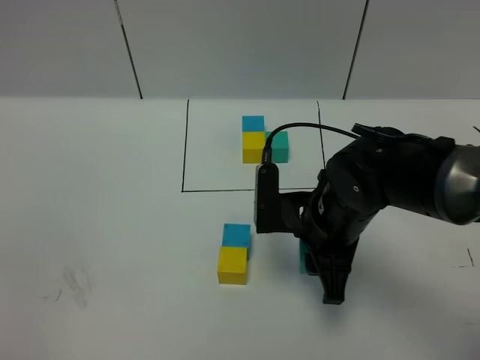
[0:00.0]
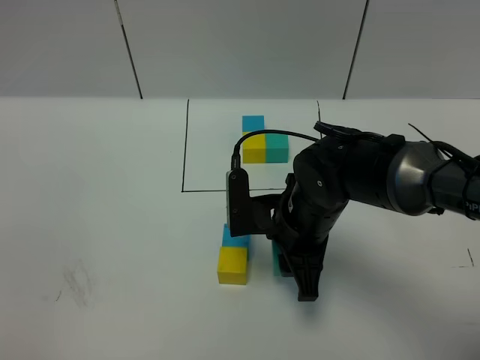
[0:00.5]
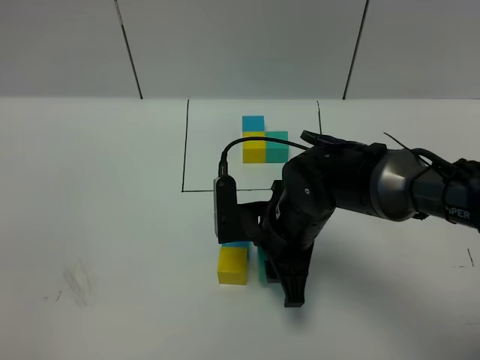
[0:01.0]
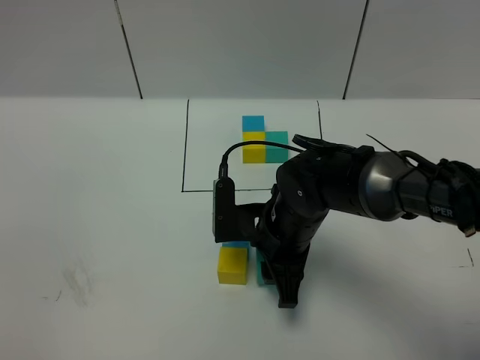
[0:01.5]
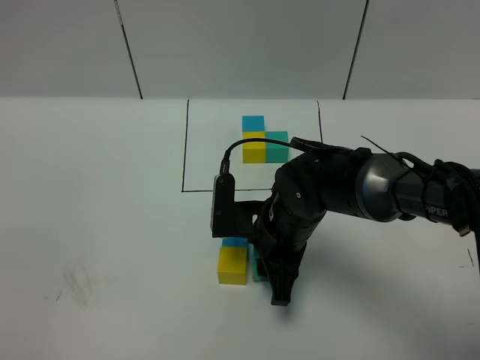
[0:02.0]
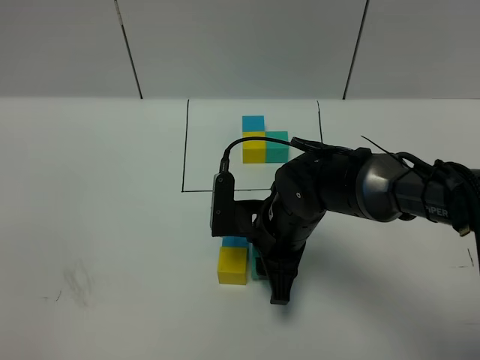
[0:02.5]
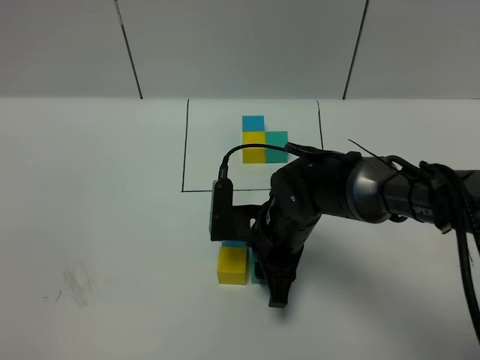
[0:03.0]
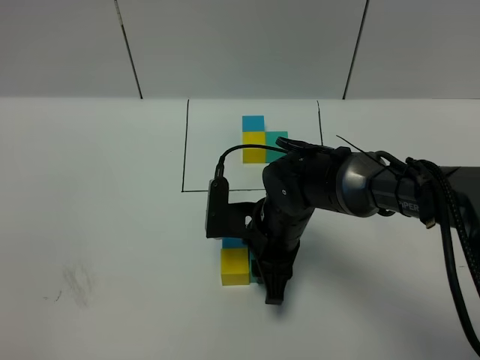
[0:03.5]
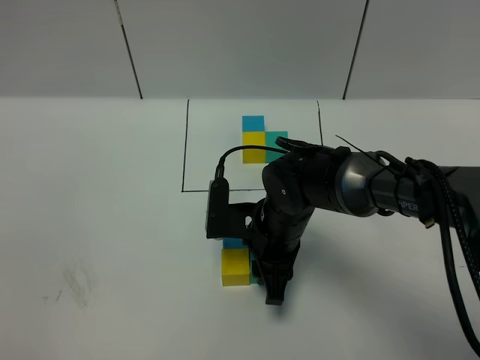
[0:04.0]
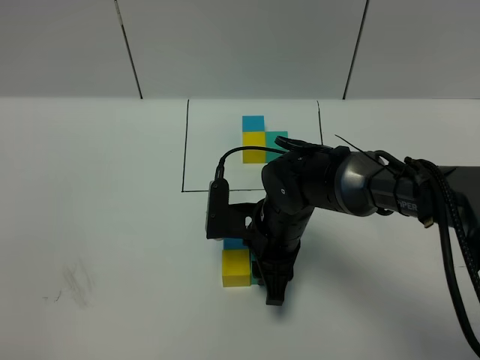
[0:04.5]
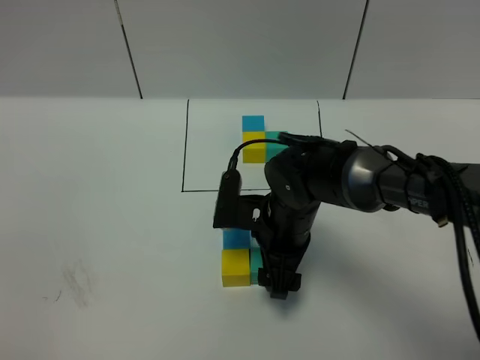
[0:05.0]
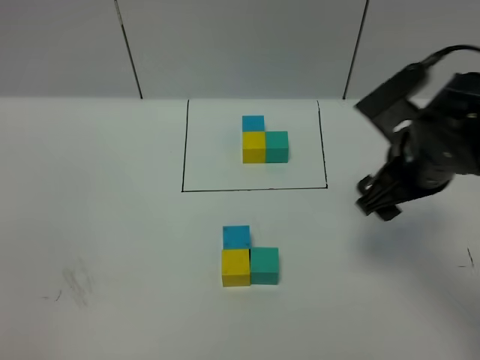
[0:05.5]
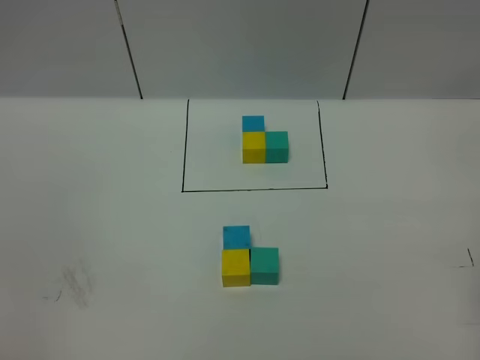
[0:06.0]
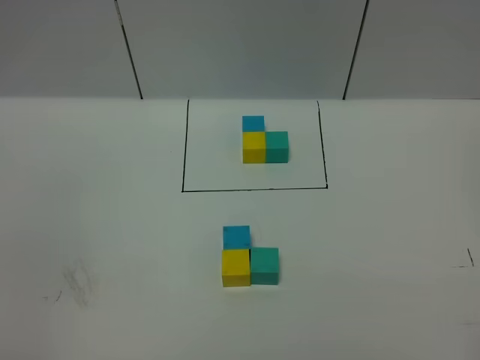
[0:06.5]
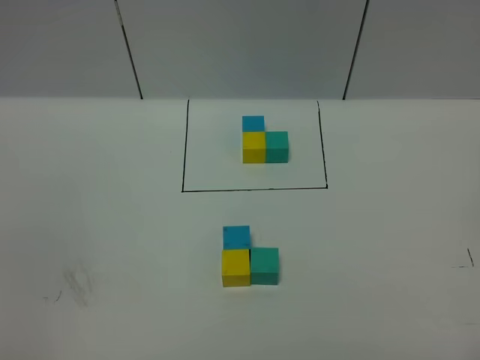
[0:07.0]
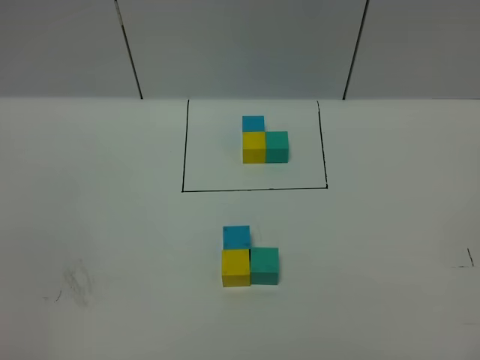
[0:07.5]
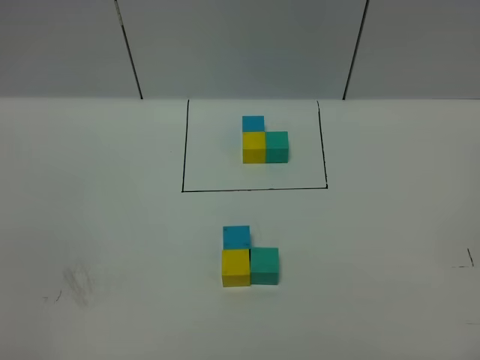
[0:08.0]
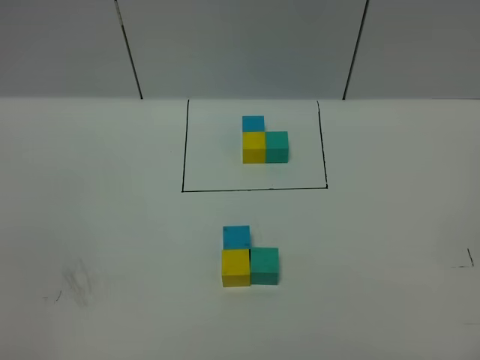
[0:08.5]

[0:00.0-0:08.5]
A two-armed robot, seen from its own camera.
Task of the whole recording: According to the building block template in front, assemble the scattered blocks together.
Step, 0:00.0 to 0:05.0: Put the green cube on the right of the yellow cube.
0:00.0 to 0:02.0: The right gripper moves some 5 cm.
0:02.0 to 0:04.0: There are only small adjustments of the grippers.
0:04.0 to 0:06.5: The right gripper moves to the right, backward and upward, roughly 40 cm, and opens.

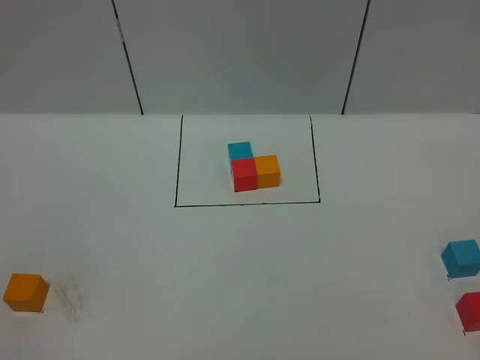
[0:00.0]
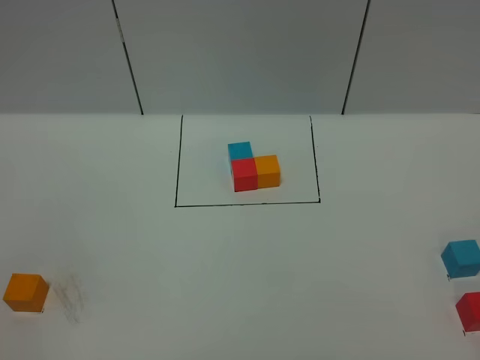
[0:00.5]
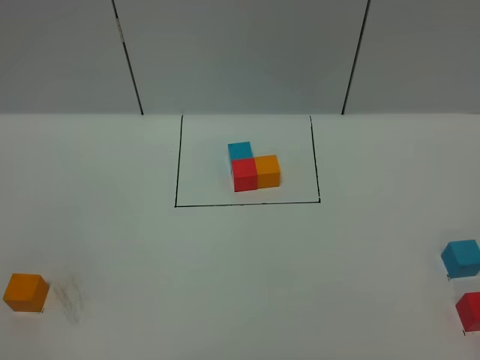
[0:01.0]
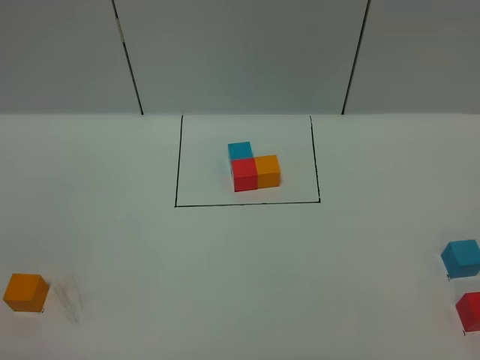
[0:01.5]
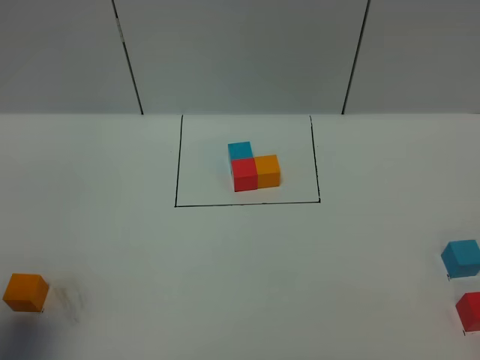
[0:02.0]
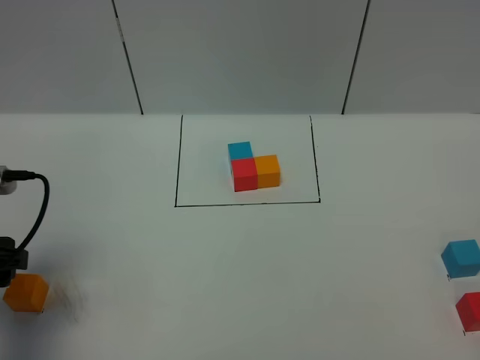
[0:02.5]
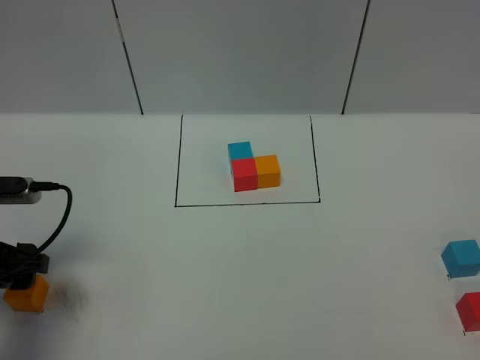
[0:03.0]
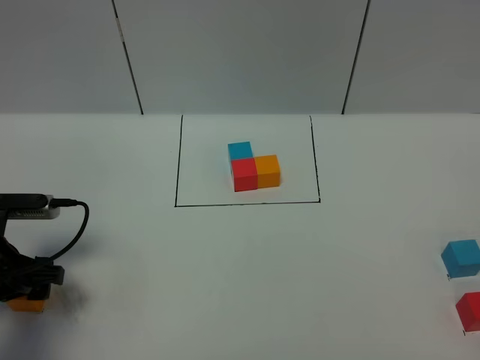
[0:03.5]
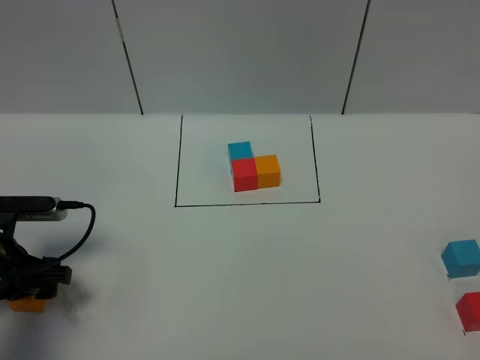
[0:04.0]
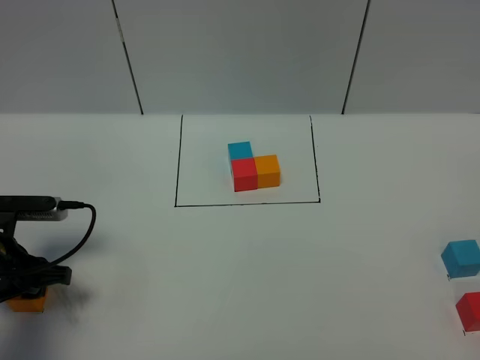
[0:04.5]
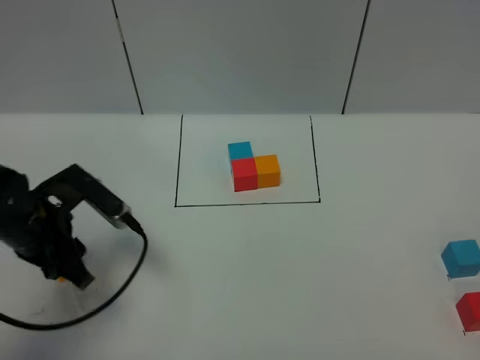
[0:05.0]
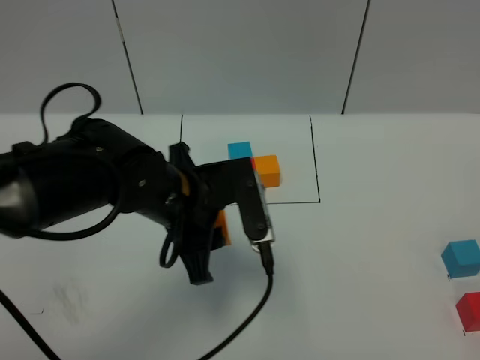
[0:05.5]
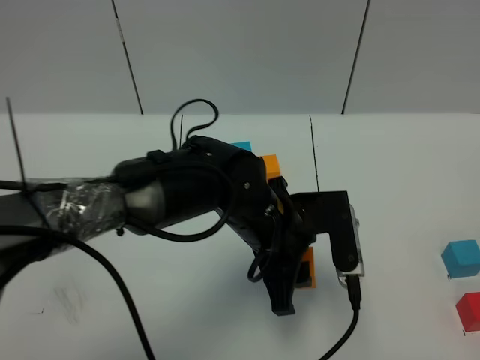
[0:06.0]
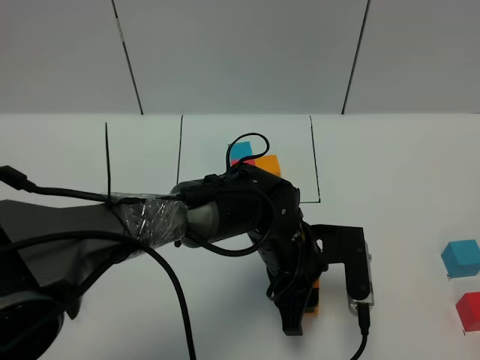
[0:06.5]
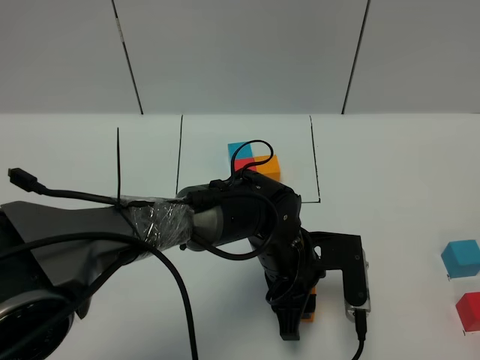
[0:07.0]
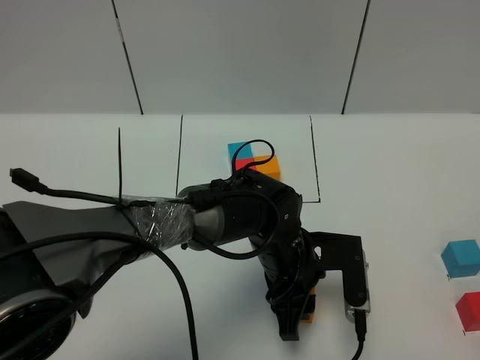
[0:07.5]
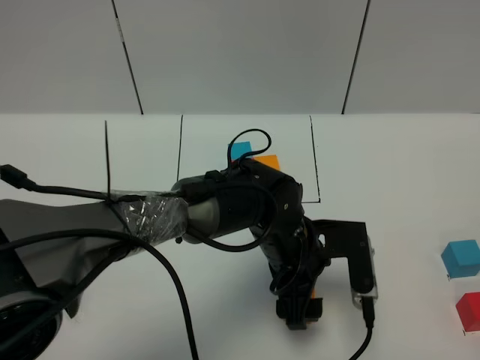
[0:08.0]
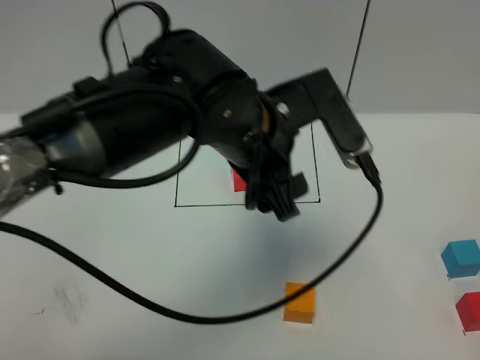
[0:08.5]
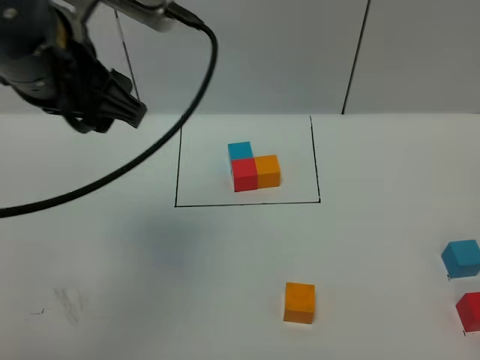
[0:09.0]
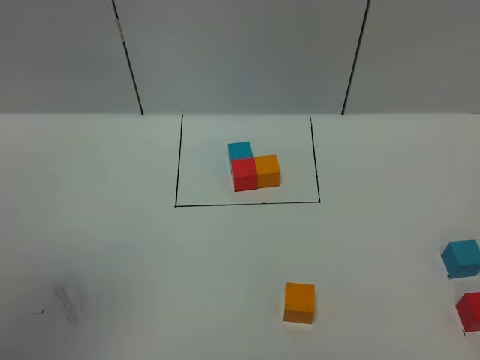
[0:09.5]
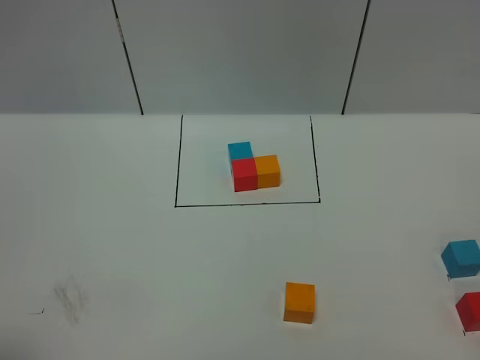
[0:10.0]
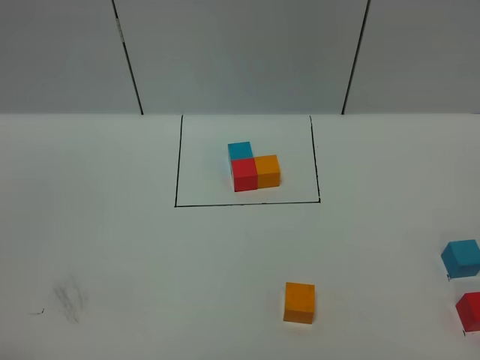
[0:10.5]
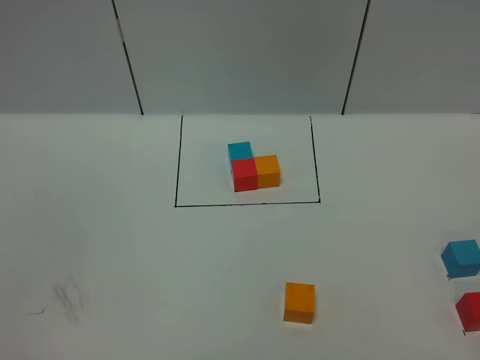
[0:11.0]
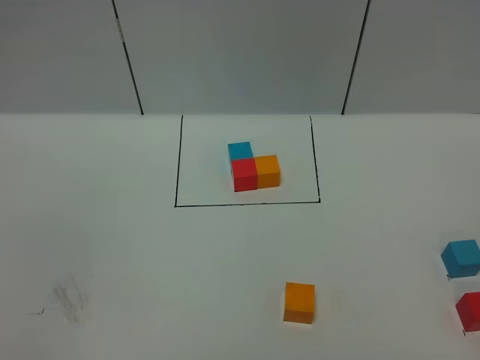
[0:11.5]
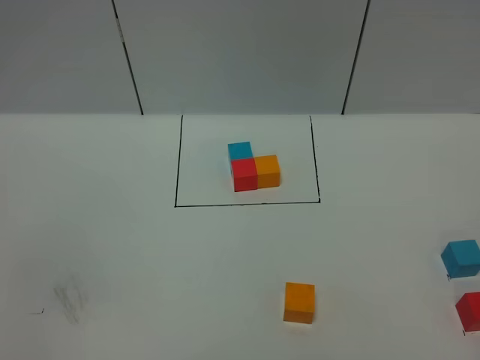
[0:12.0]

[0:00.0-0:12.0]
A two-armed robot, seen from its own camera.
Task of the whole recording: According to the building block template in front, assemble the scattered blocks together.
Step, 0:02.5 to 0:08.5: Put the orange cube in the center of the table.
0:00.0 to 0:02.0: The left gripper goes some 15 cm forward.
0:02.0 to 0:04.0: The left gripper is displaced downward and forward by roughly 20 cm.
0:04.0 to 0:06.0: The left gripper moves to the right, some 30 cm, and closes its fingers.
0:06.0 to 0:08.0: The left gripper moves roughly 5 cm, and opens up.
0:08.0 to 0:10.0: The left gripper is displaced to the left, upward and backward by some 50 cm.

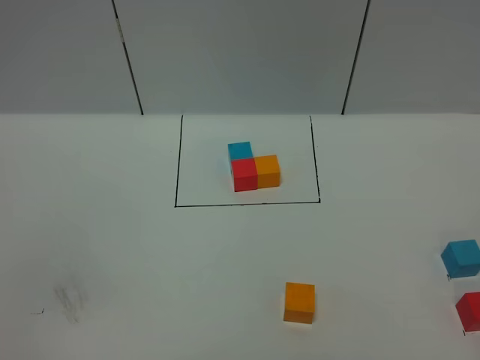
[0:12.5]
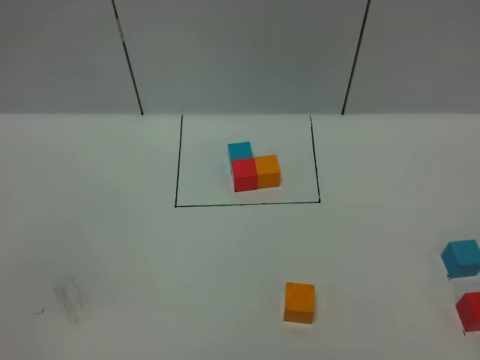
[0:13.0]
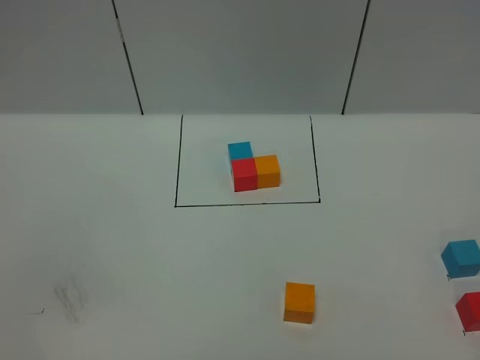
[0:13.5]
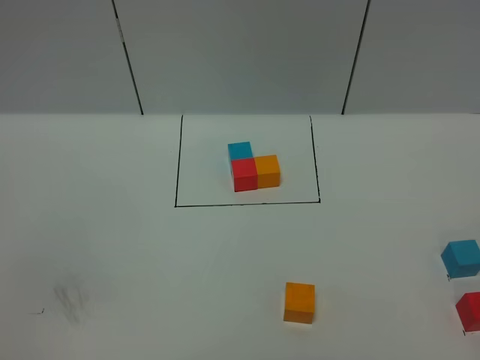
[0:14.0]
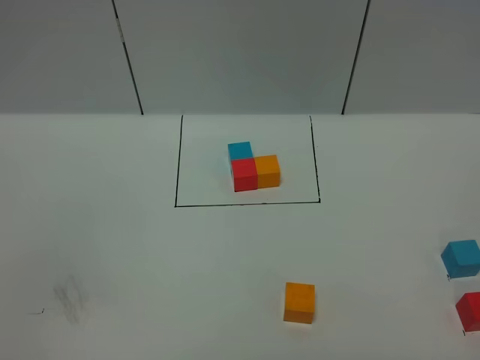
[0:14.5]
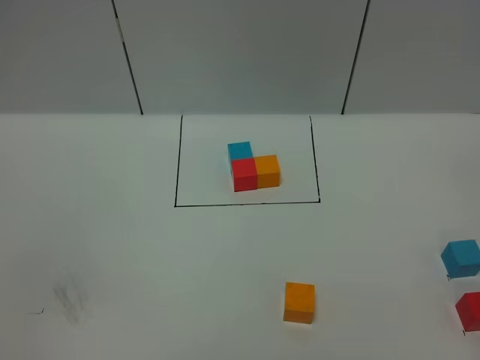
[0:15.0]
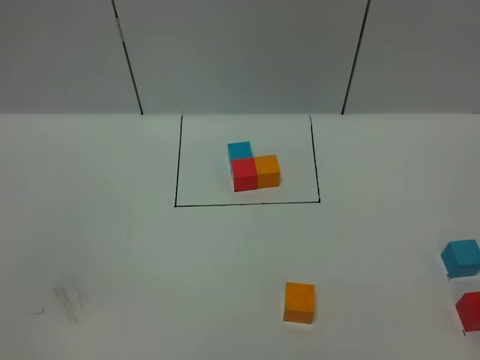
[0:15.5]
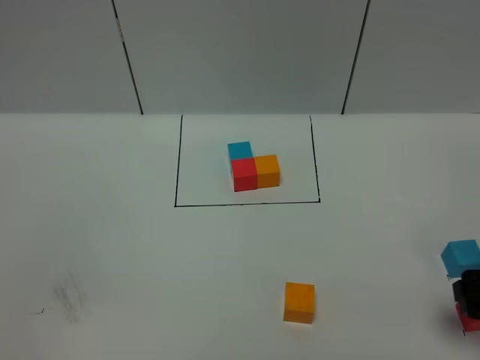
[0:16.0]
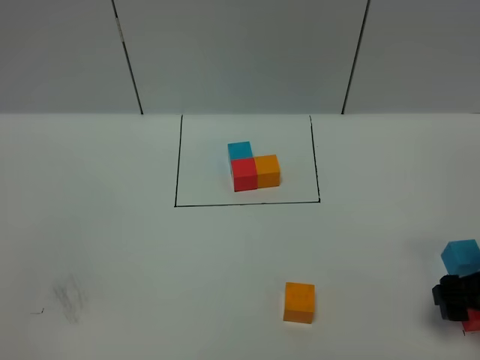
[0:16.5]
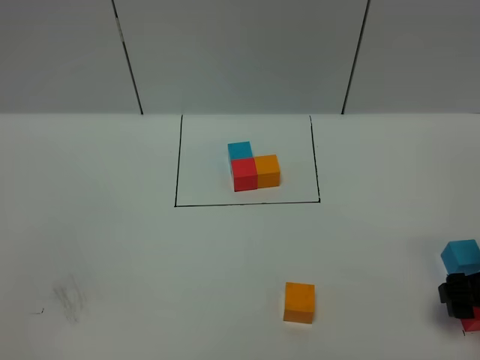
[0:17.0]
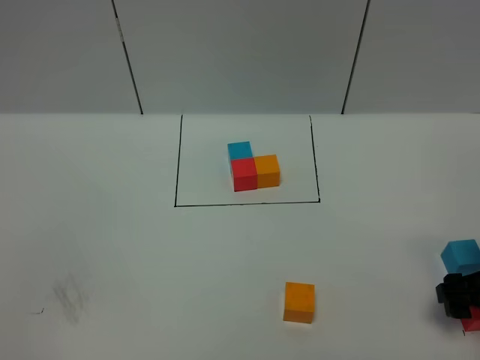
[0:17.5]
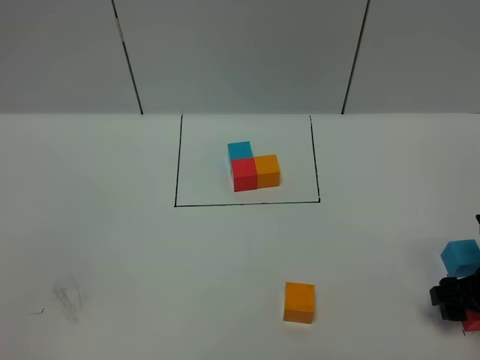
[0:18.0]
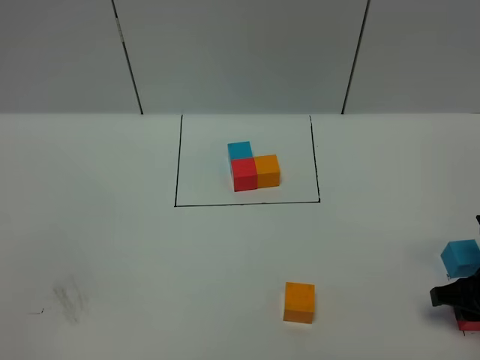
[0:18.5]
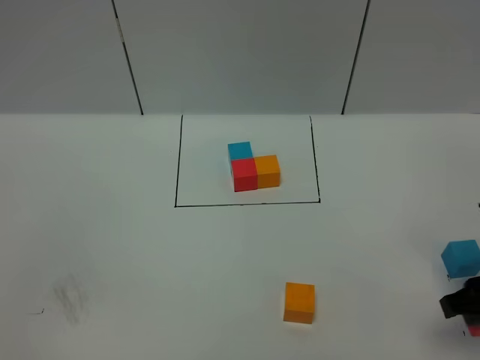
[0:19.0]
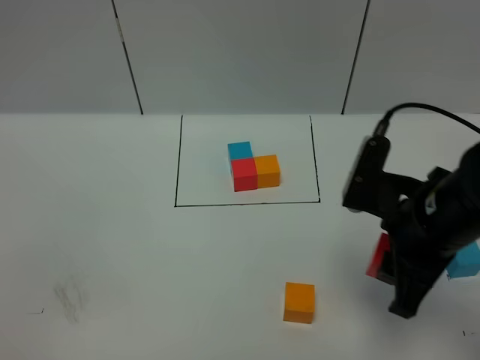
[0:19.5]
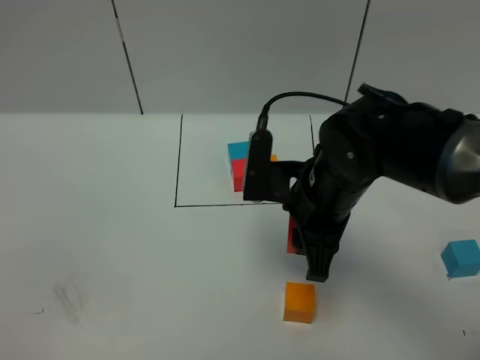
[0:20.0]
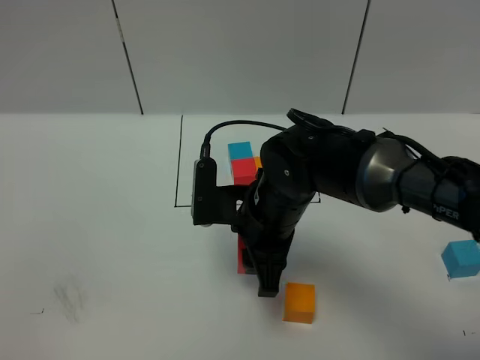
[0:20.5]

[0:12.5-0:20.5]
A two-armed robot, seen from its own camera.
Task of the whole recording: According to the building block template in front, assemble the scattered blocks together.
0:14.5 to 0:16.5: The right gripper moves forward and downward, about 25 cm.
0:18.5 to 0:20.5: The right gripper heads to the left, covering about 30 cm.
